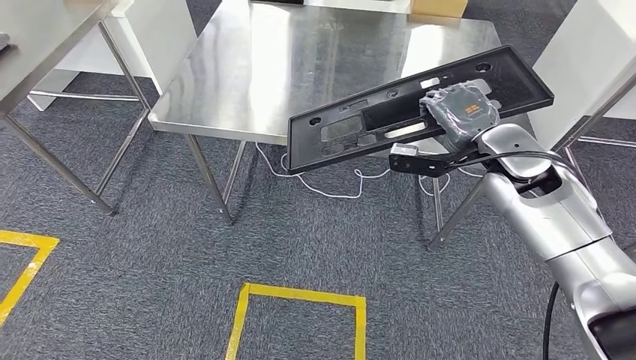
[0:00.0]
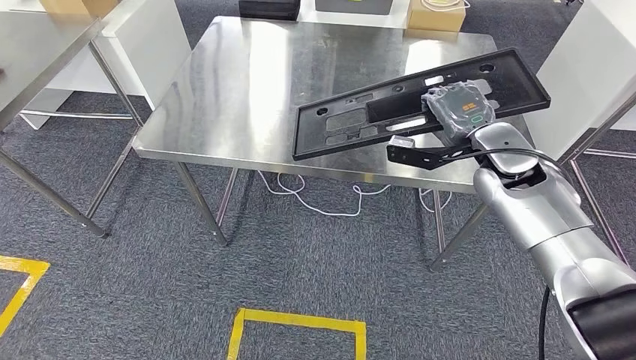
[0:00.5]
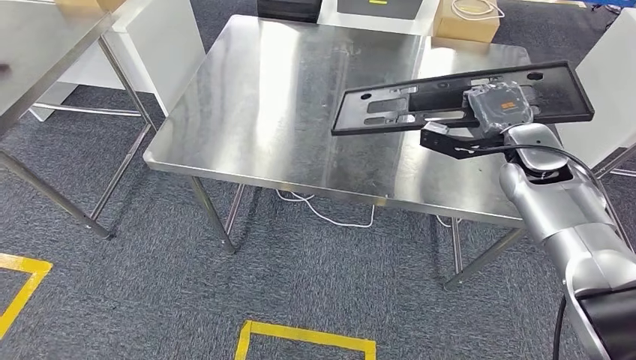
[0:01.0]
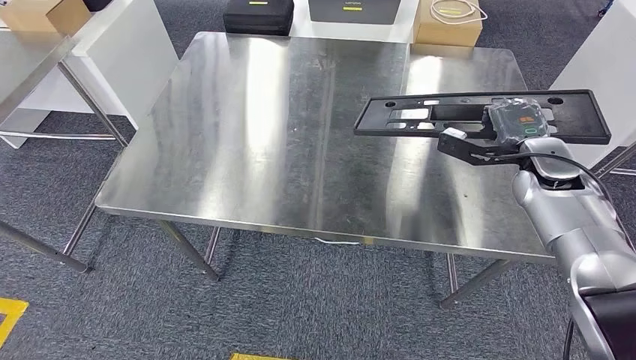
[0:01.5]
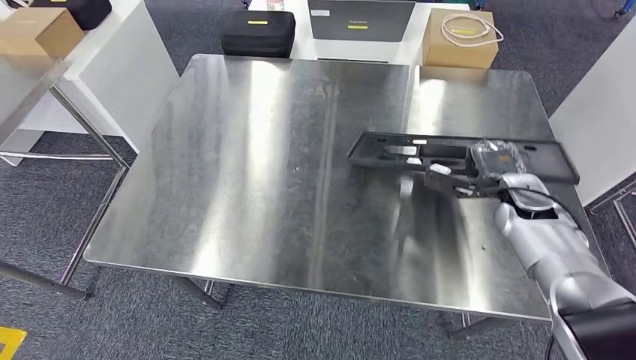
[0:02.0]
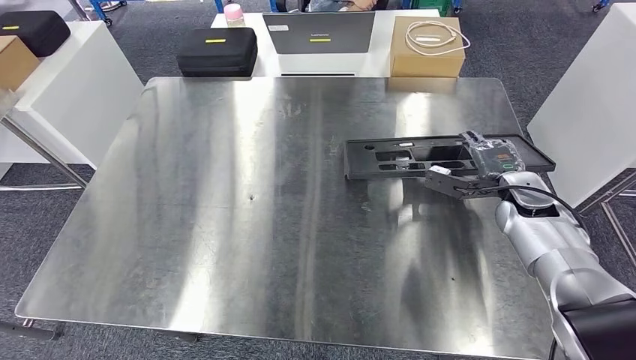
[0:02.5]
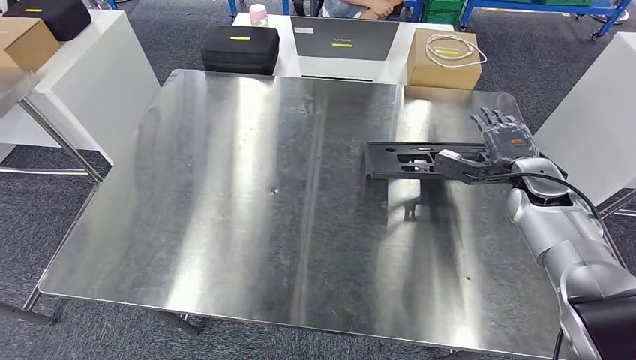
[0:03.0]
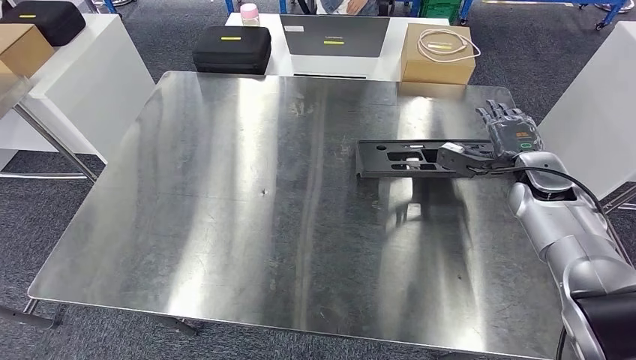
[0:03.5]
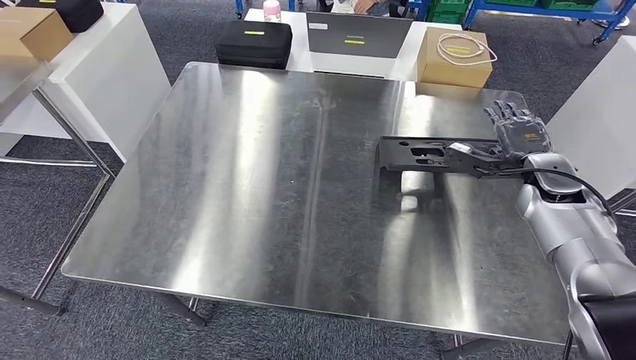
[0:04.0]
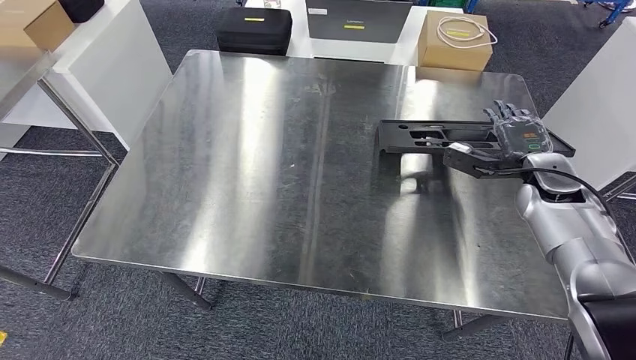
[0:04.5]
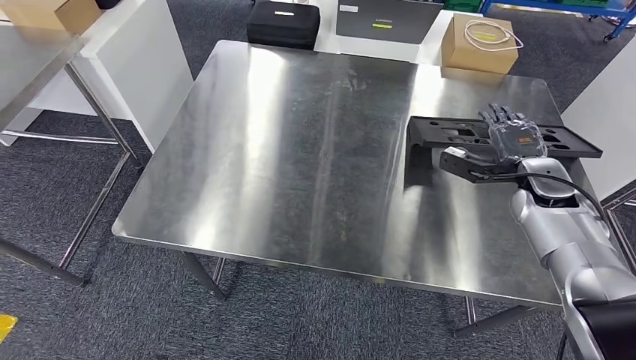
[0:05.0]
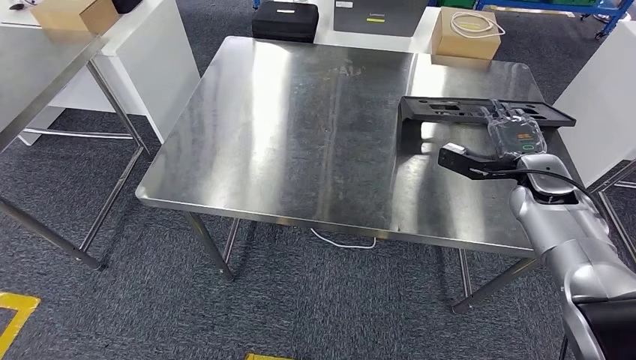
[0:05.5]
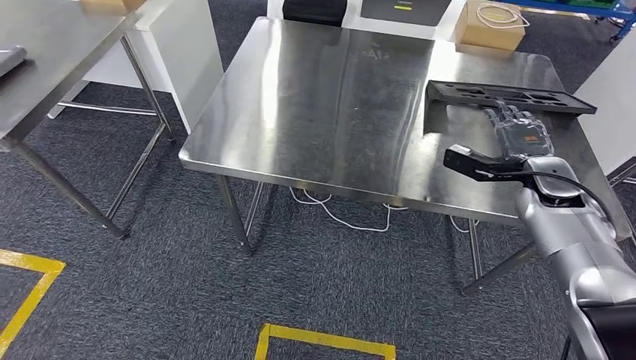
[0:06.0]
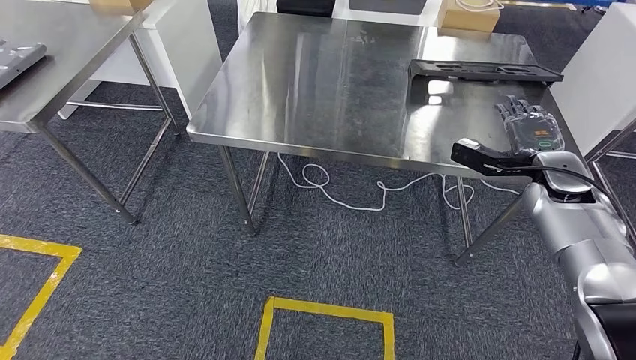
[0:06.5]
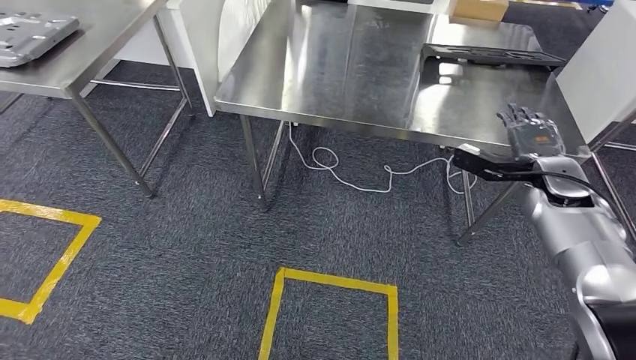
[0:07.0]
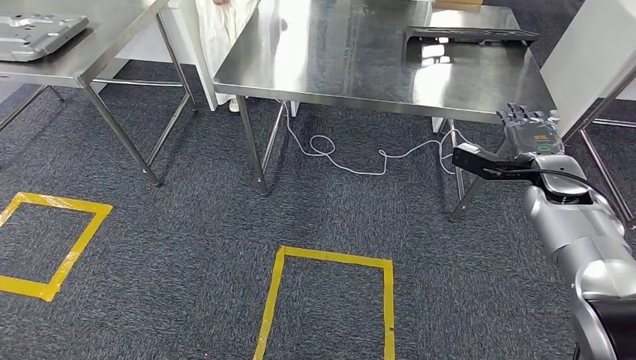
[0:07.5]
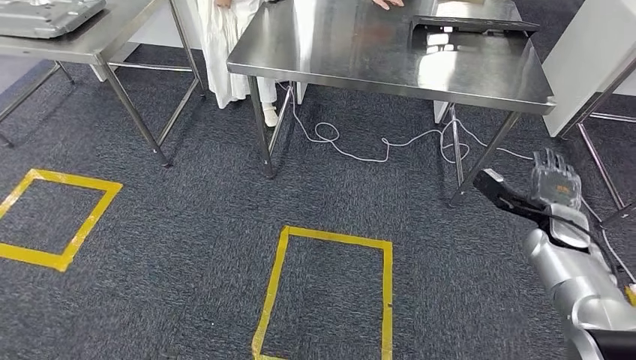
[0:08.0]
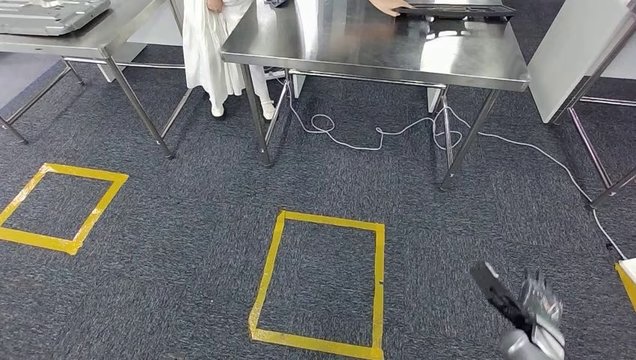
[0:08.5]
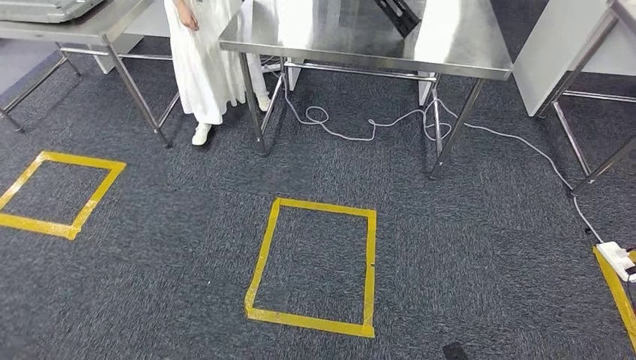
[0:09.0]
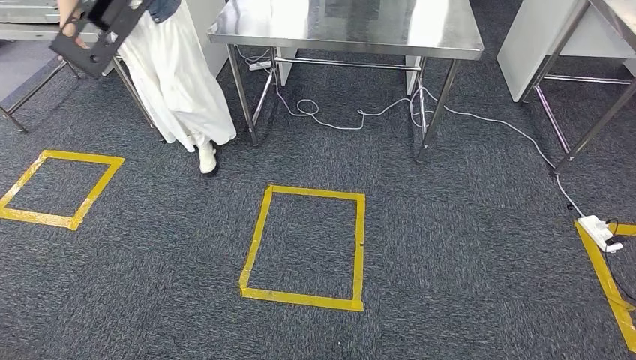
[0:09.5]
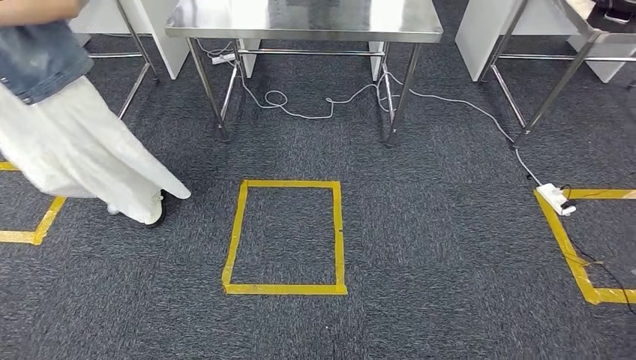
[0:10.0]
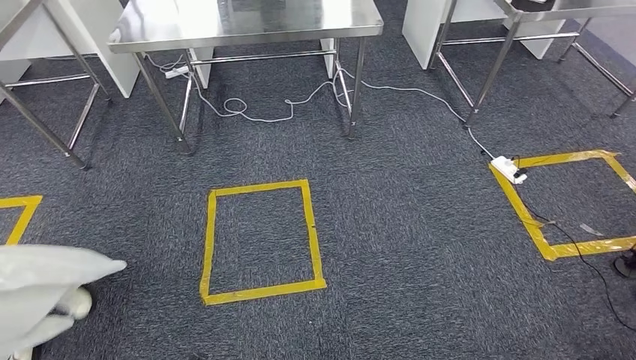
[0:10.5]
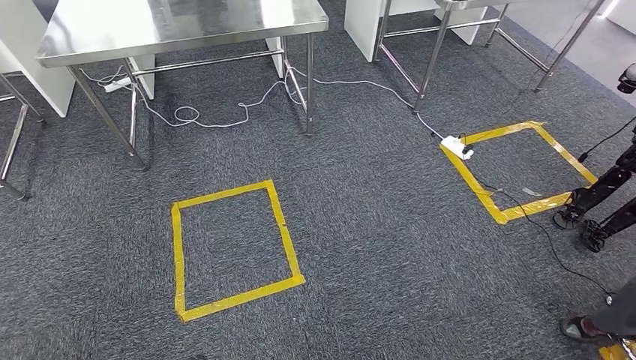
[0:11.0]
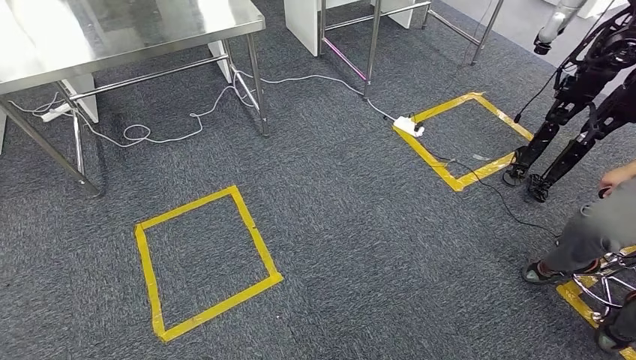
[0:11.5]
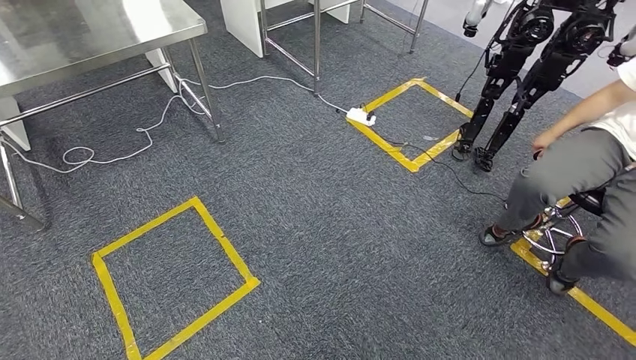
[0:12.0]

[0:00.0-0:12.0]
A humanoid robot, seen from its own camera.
Step, 0:00.0 to 0:03.5: Insert the large material into the corresponding hole on the workbench.

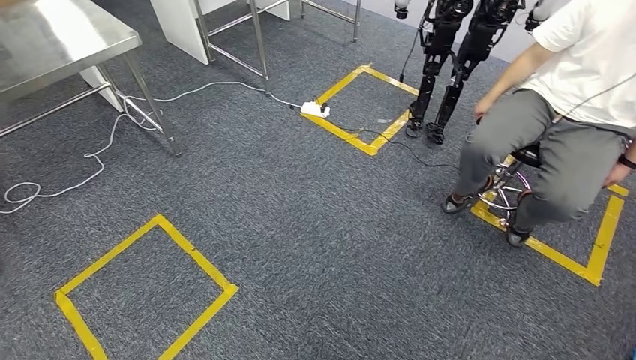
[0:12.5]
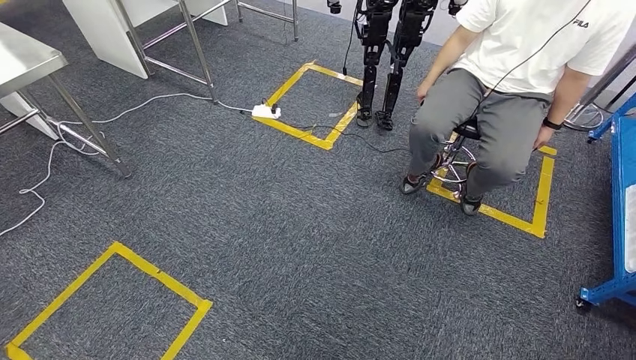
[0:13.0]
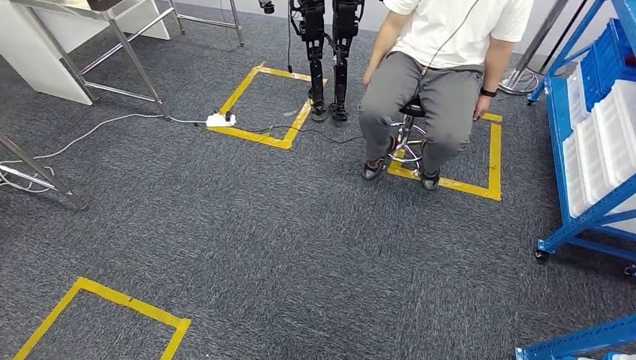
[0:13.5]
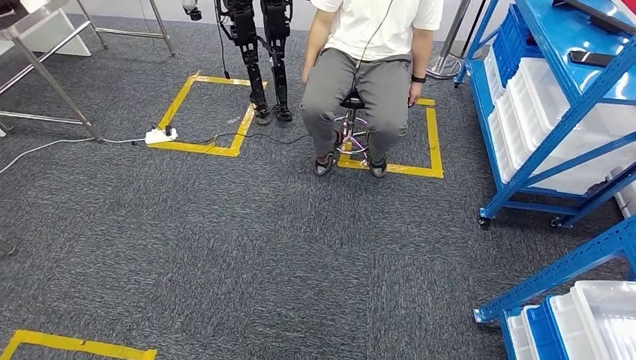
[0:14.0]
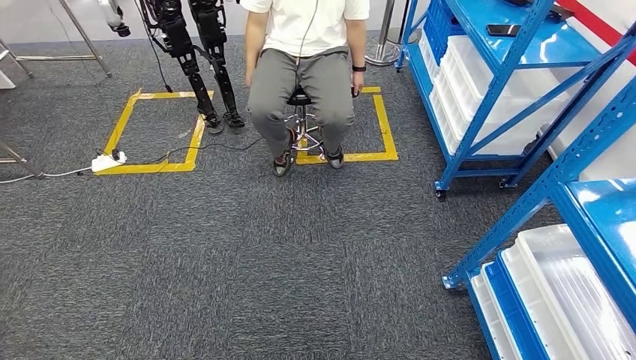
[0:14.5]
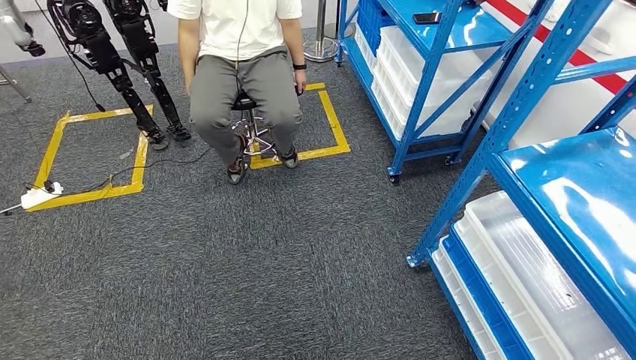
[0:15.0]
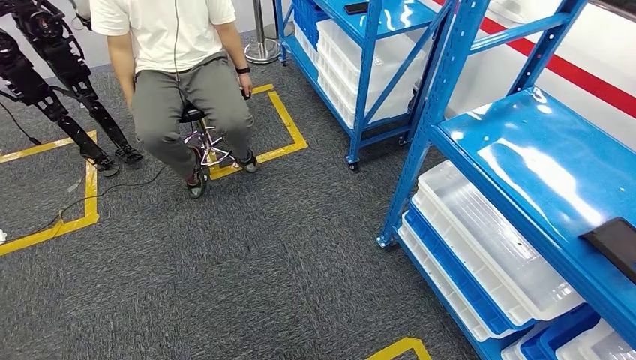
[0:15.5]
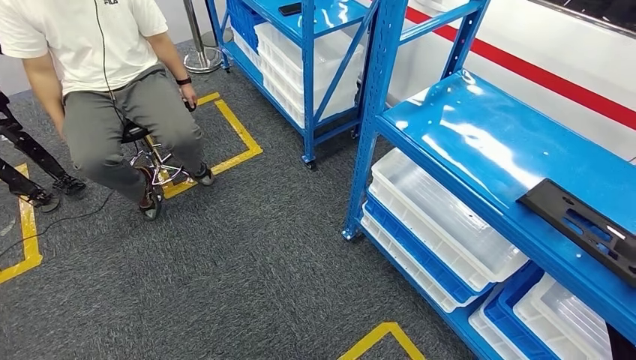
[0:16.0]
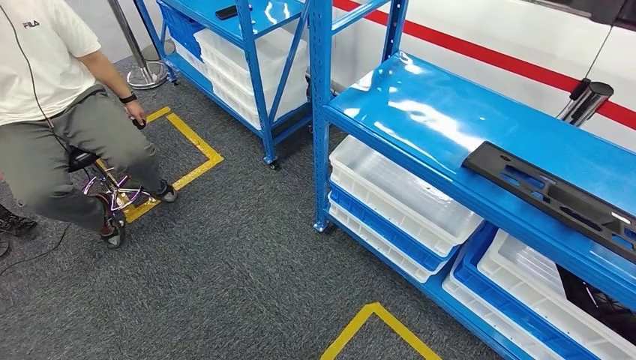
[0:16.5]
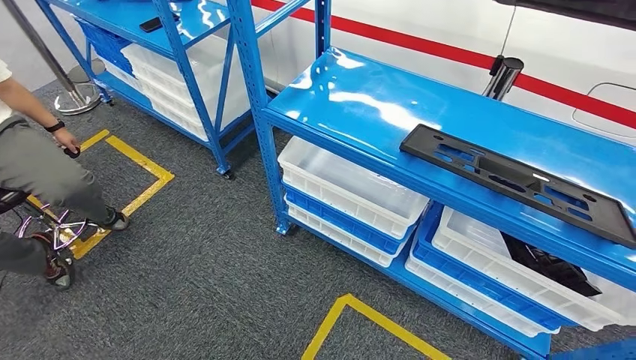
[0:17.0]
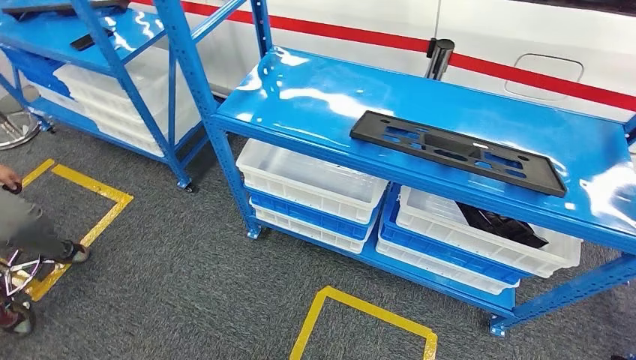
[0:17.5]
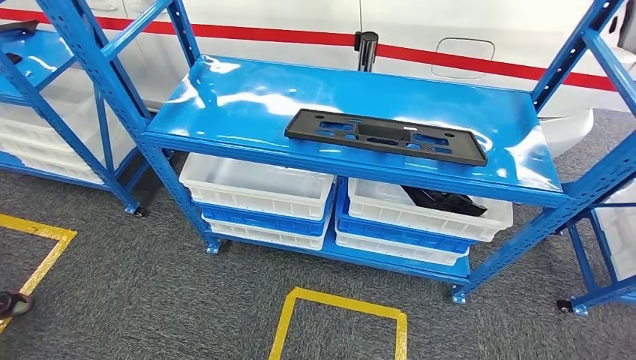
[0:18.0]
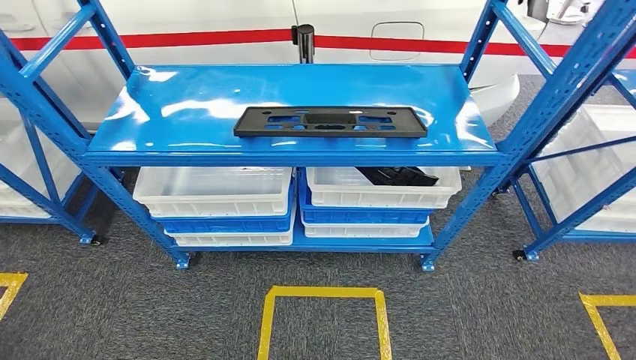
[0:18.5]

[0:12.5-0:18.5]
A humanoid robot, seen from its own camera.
Step, 0:12.5 to 0:18.5: Move to the initial position of the shelf.
